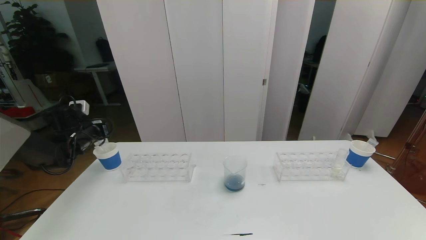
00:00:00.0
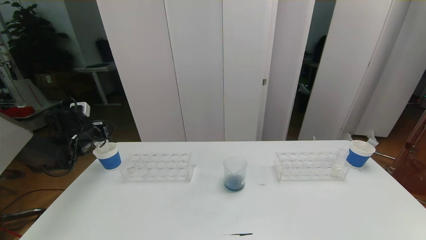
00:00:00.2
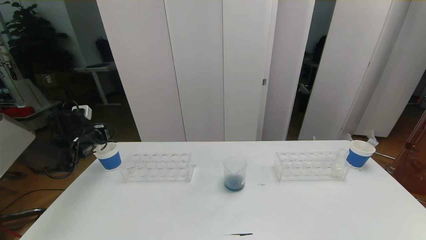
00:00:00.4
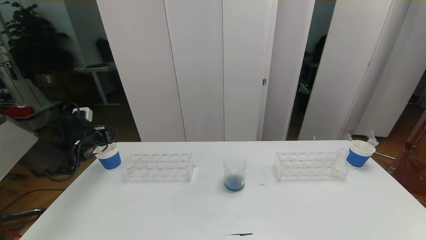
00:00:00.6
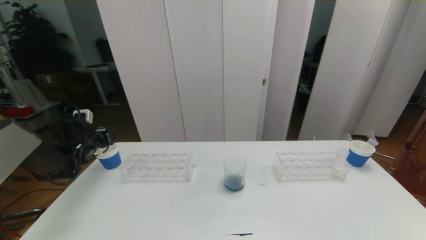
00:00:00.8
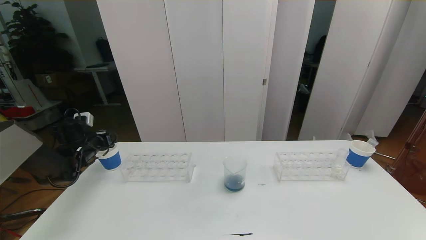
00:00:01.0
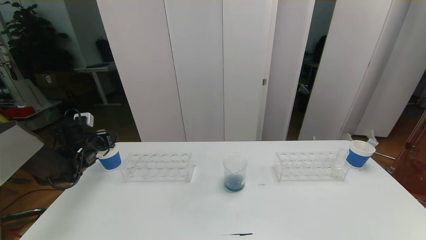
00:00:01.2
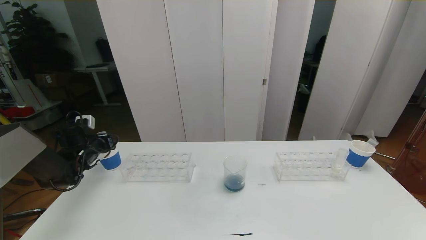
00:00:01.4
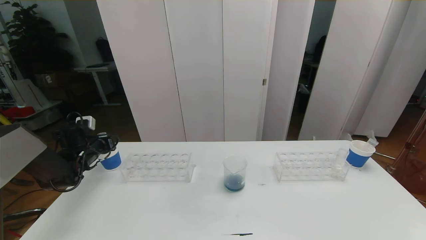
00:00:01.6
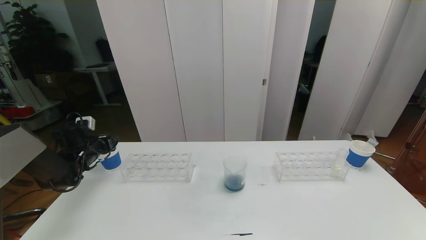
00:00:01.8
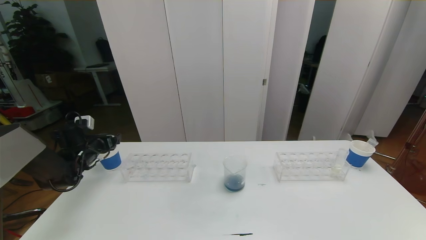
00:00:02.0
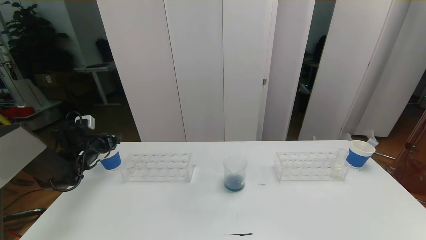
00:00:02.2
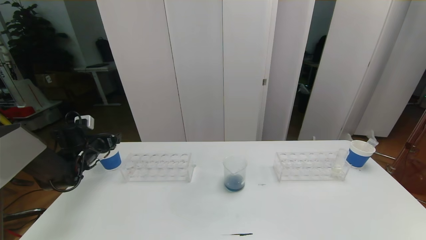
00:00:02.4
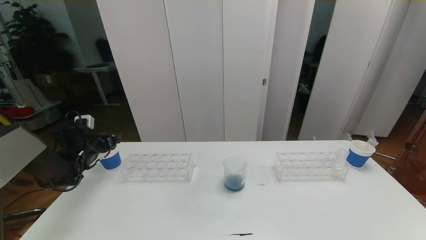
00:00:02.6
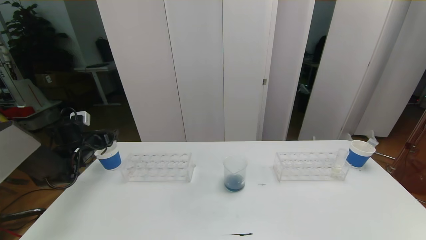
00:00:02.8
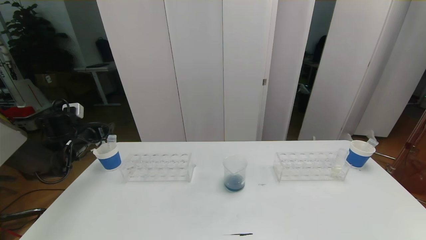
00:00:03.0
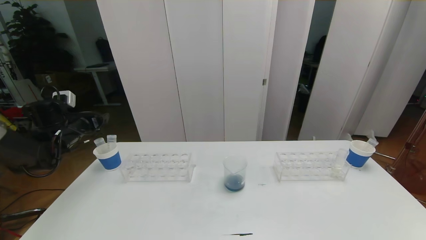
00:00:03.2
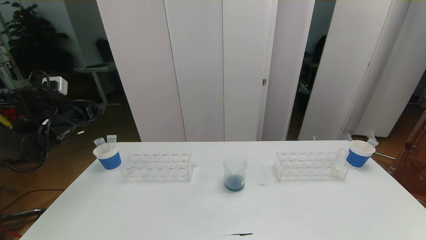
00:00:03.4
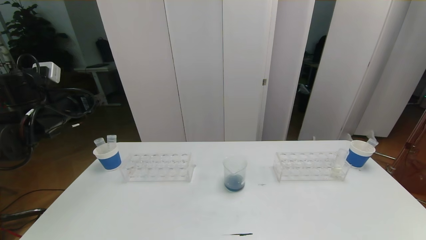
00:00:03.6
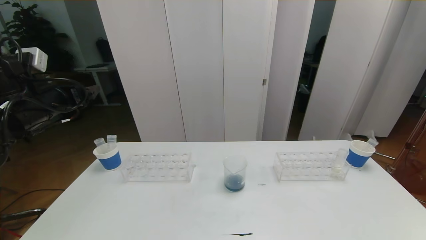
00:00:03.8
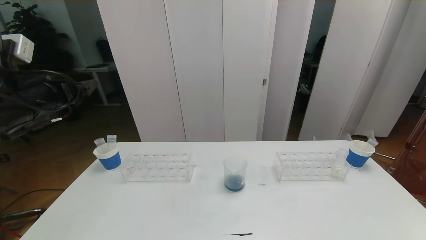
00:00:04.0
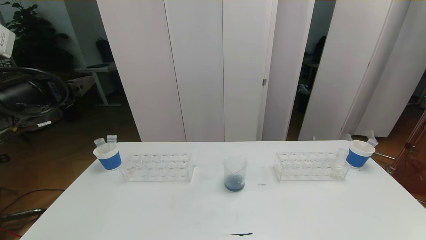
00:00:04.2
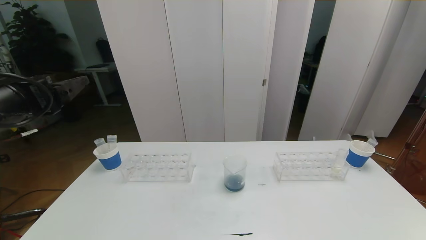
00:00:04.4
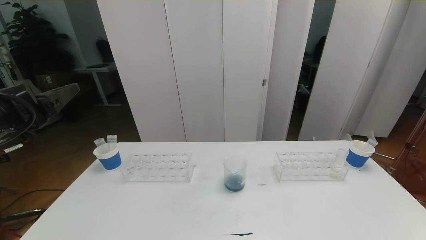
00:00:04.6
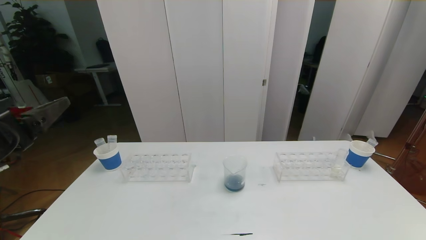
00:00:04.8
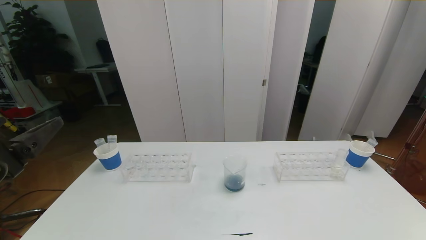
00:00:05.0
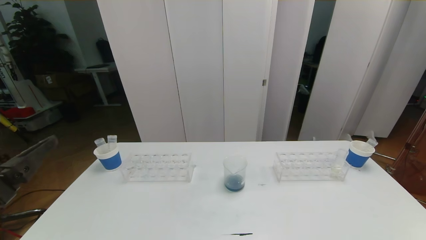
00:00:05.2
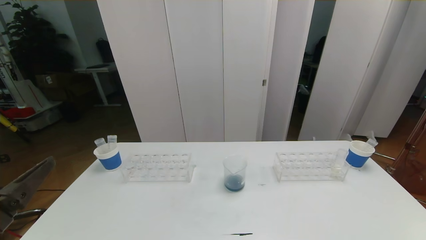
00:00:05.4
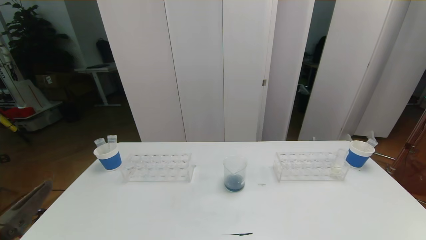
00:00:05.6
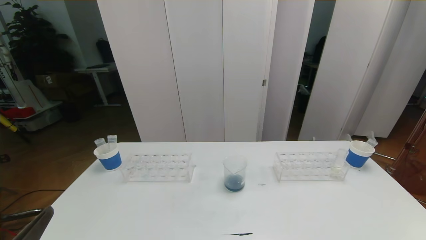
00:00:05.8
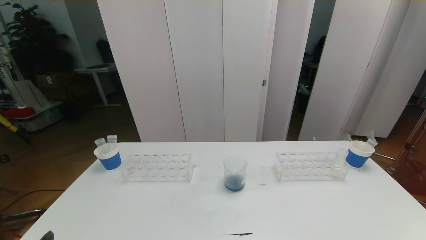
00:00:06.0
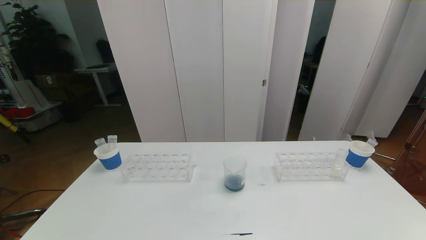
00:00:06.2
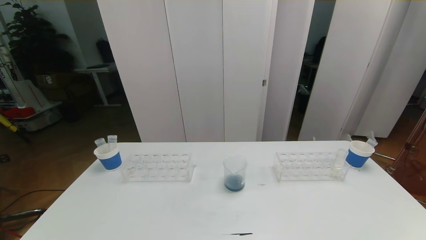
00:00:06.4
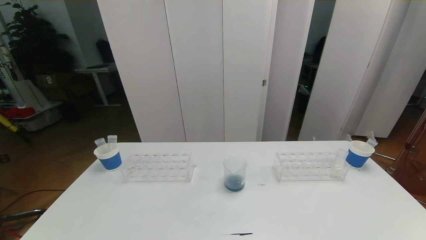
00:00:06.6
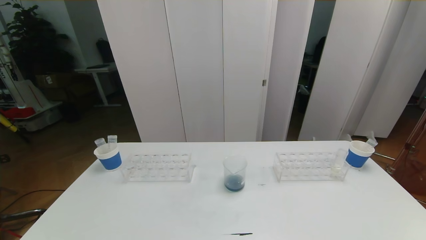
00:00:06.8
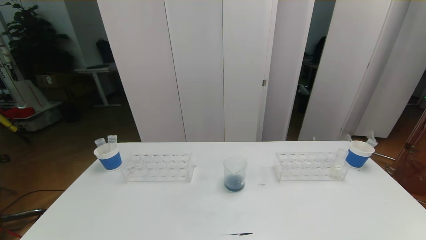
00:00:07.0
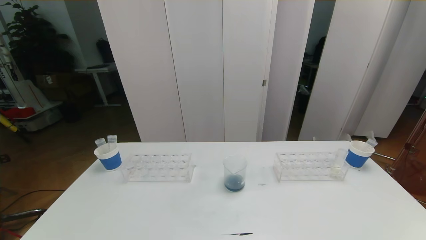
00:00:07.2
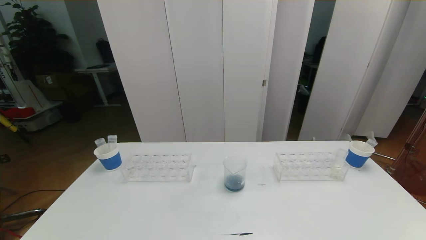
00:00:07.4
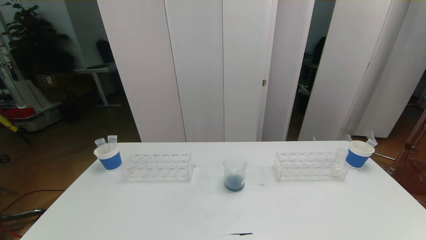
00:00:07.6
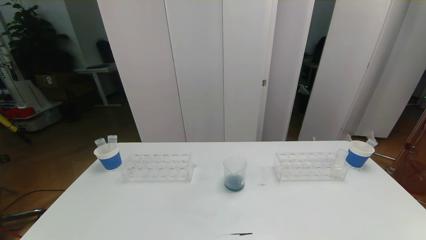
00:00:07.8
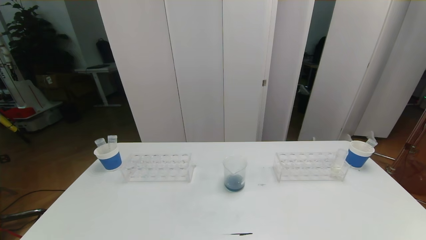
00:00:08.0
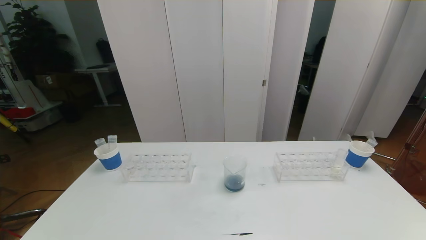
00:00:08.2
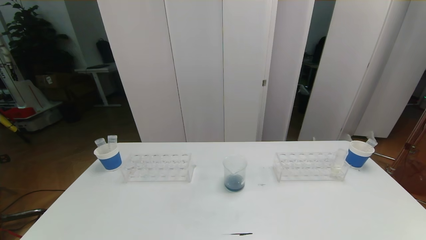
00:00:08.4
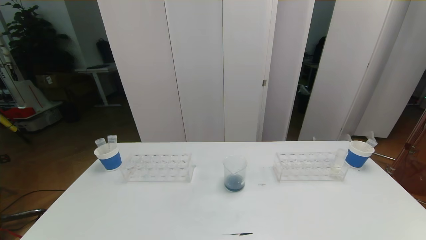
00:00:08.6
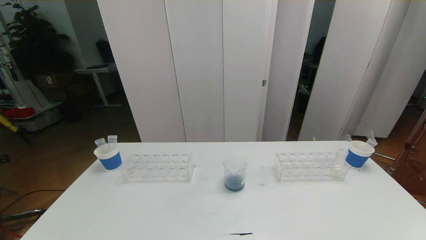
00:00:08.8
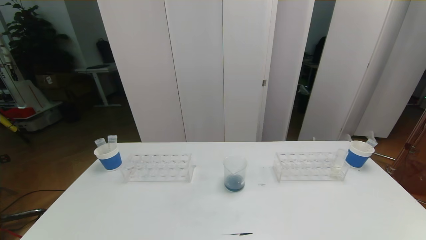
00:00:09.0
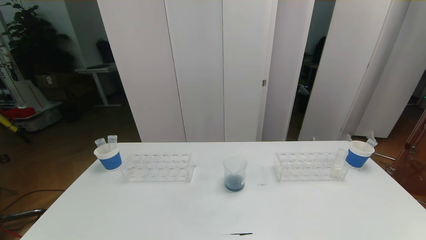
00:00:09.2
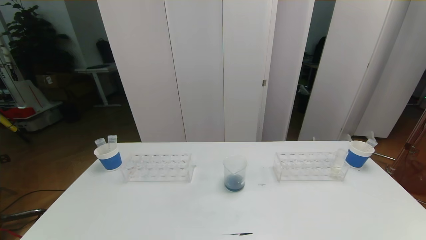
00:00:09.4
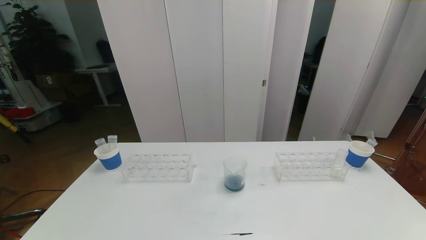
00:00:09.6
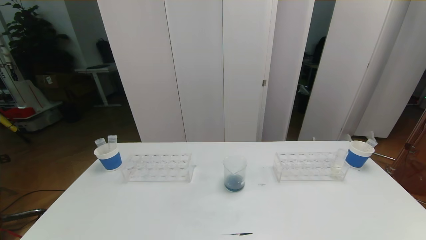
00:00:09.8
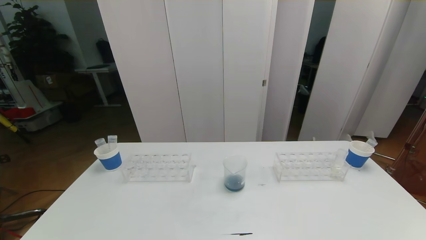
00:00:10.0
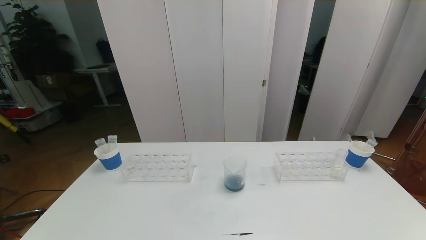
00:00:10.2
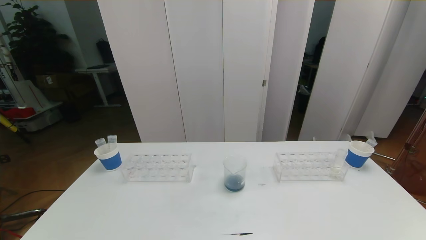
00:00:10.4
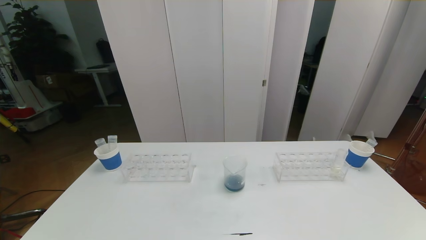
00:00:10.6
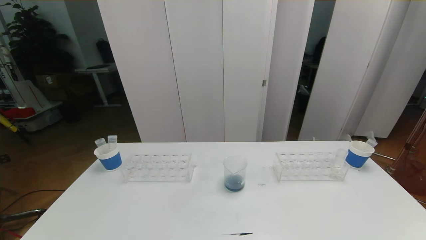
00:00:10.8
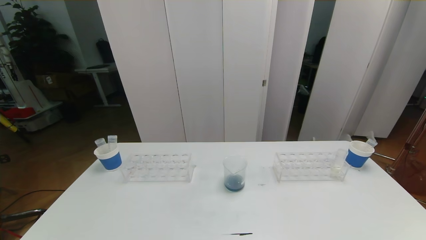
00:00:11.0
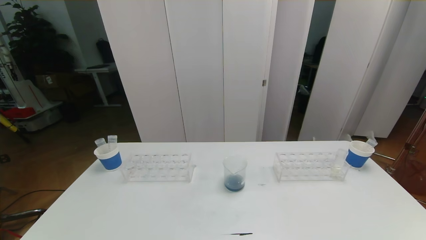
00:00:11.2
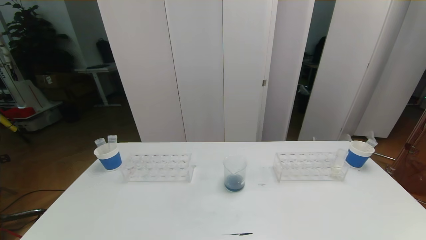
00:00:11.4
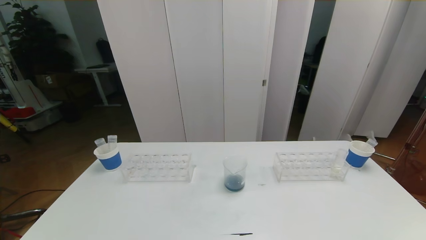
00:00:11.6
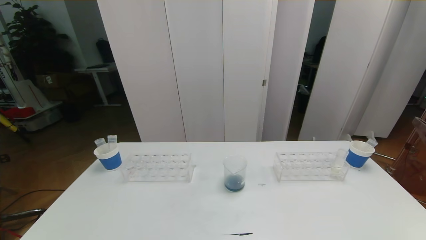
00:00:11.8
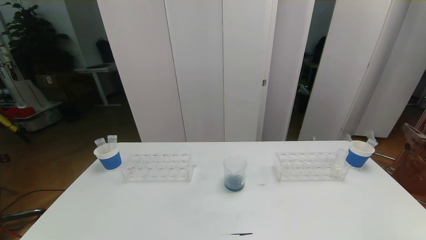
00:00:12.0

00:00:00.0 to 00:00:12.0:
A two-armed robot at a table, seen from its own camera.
Task of the whole recording: pick up the test tube with red pigment the test tube with blue pigment and the test tube with white pigment by grippers and pour them into the beaker.
Step, 00:00:00.0 to 00:00:10.4: Pour the orange reagent into the graduated cylinder and place the test tube into the paper cup.
00:00:00.0 to 00:00:01.6: The left gripper changes place by some 5 cm.
00:00:01.6 to 00:00:03.0: The left gripper travels upward by about 5 cm, and opens its fingers.
00:00:03.0 to 00:00:04.4: The left gripper is displaced backward, upward and to the right by about 30 cm.
00:00:04.4 to 00:00:06.0: The left gripper heads backward and downward, covering some 25 cm.
00:00:07.6 to 00:00:09.0: The two grippers keep their place.

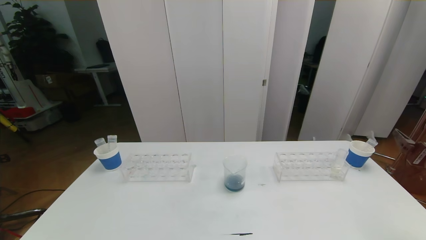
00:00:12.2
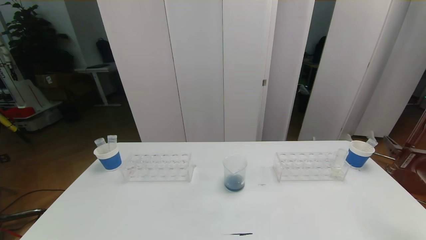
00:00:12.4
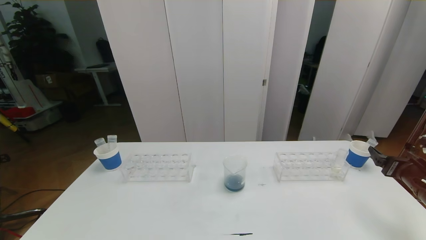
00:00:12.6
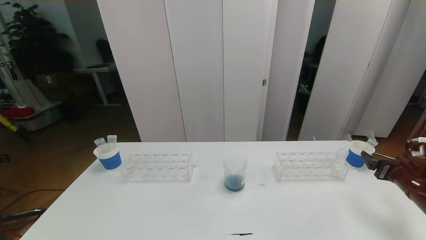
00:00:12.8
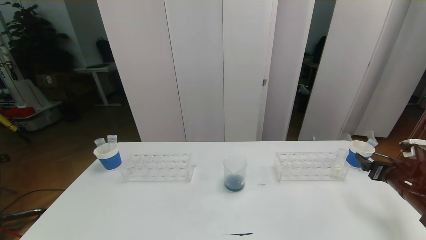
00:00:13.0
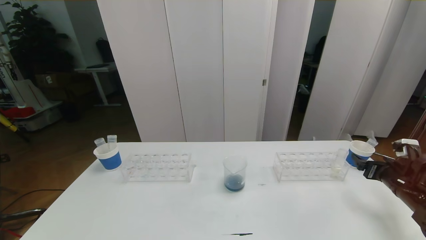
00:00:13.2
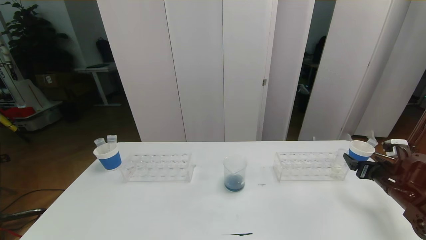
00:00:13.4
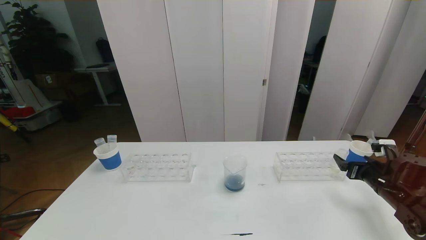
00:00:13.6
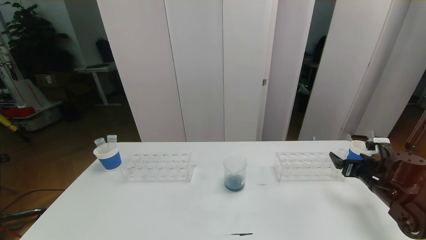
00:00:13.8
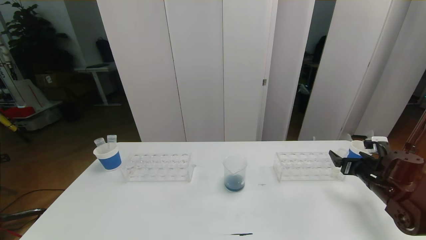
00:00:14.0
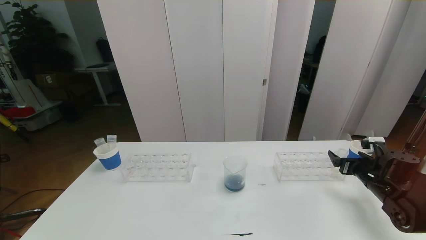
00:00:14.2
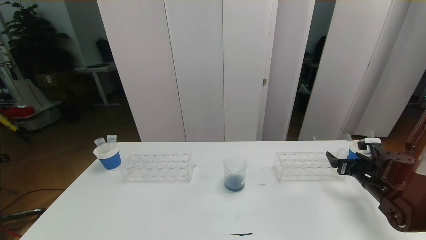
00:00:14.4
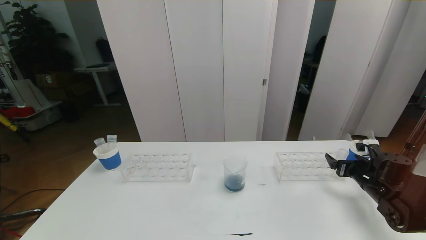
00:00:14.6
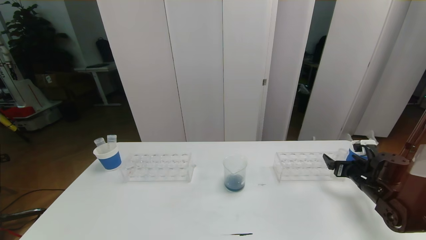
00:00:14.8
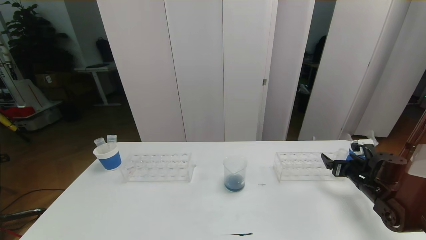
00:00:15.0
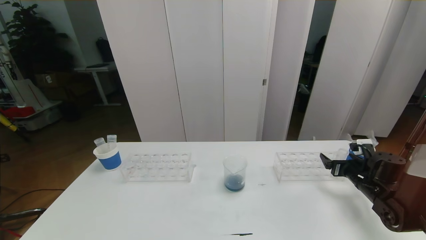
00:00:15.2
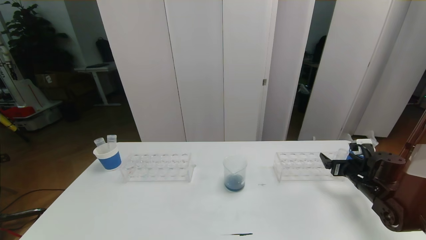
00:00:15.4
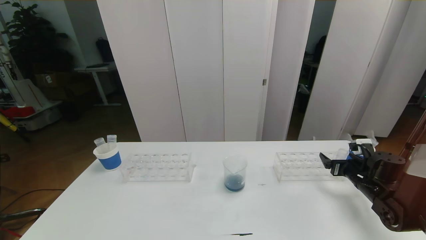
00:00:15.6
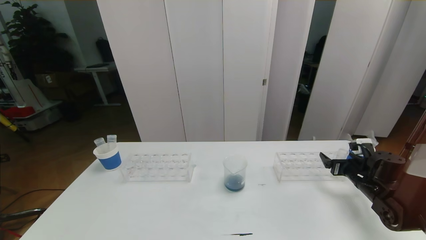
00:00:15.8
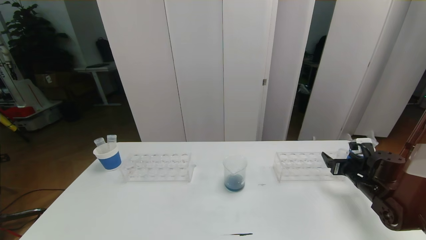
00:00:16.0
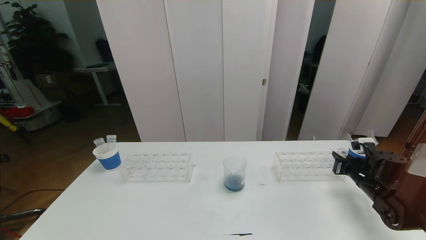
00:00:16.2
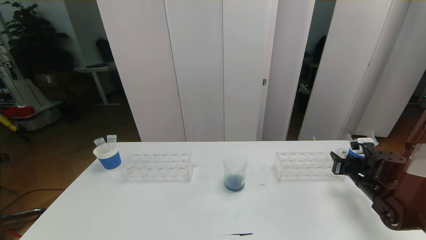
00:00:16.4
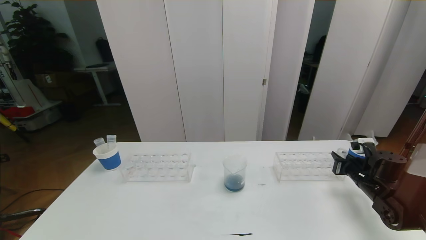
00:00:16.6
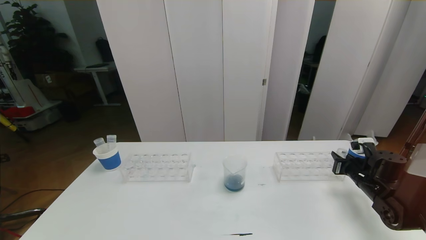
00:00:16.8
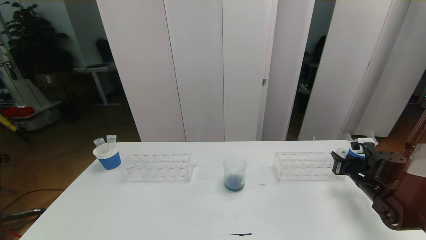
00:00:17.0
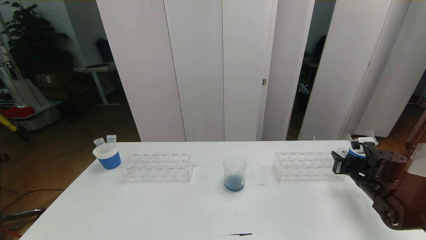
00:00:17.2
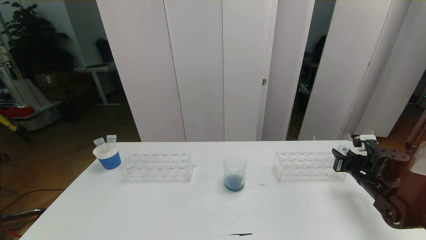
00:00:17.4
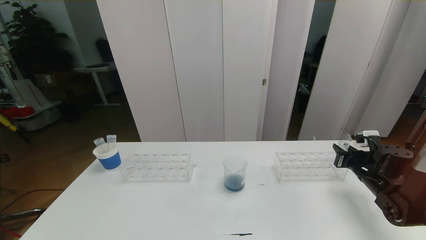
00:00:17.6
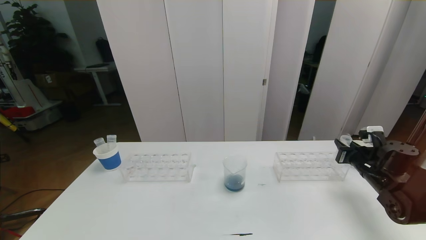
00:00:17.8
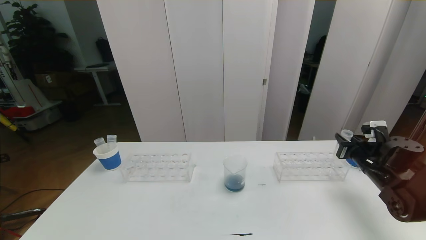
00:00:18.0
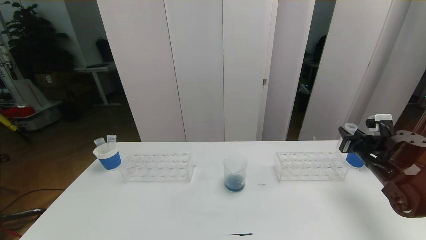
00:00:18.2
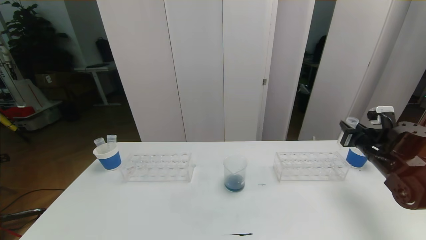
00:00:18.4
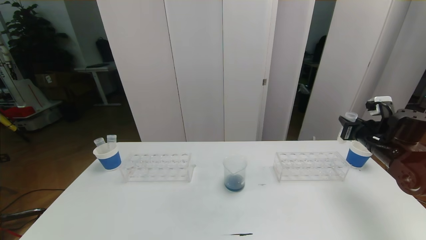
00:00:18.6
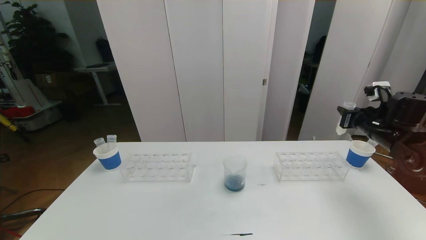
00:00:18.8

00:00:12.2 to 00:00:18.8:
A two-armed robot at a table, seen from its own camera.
Task of the whole recording: pick up the test tube with red pigment the test tube with blue pigment and the test tube with white pigment by grippers and pour them into the beaker.
00:00:12.2 to 00:00:13.8: The right gripper shifts about 15 cm downward and forward.
00:00:13.8 to 00:00:15.4: The grippers stay close to where they were, moving slightly.
00:00:15.4 to 00:00:17.2: The right gripper closes up.
00:00:17.2 to 00:00:18.8: The right gripper shifts roughly 15 cm upward.
